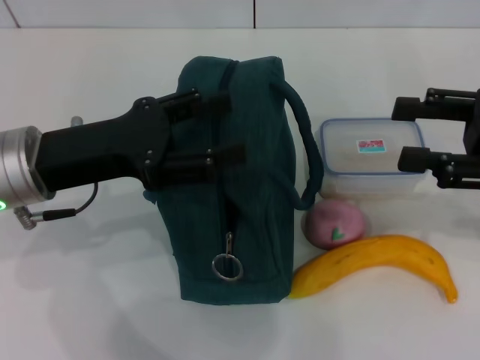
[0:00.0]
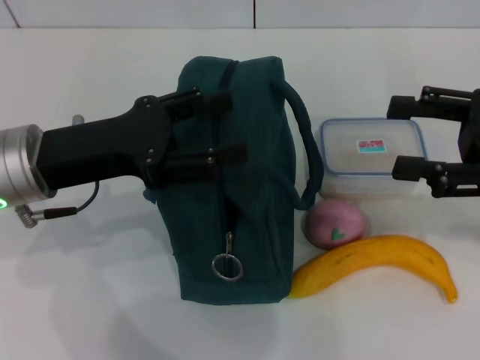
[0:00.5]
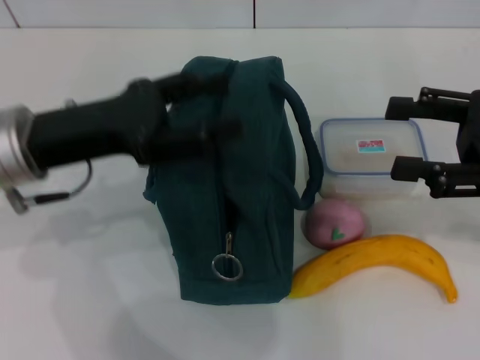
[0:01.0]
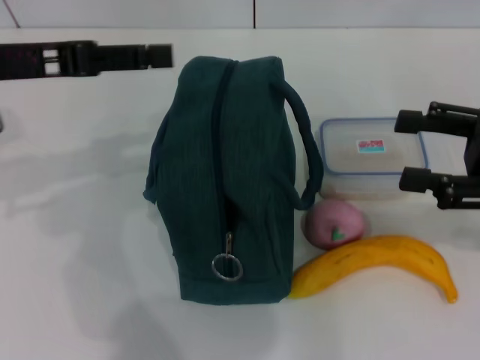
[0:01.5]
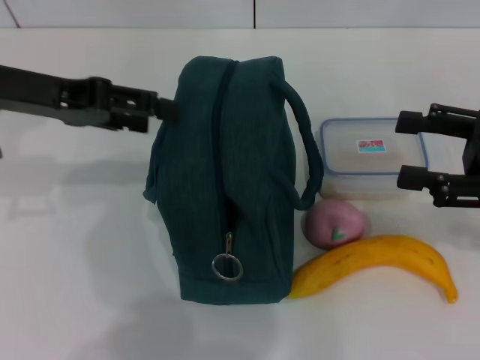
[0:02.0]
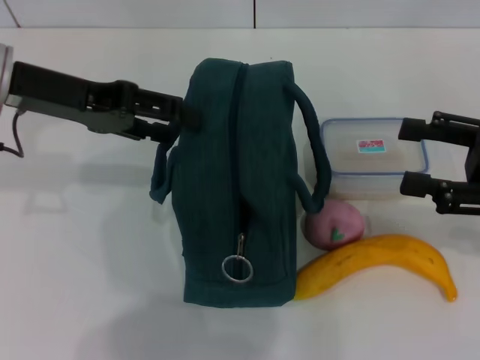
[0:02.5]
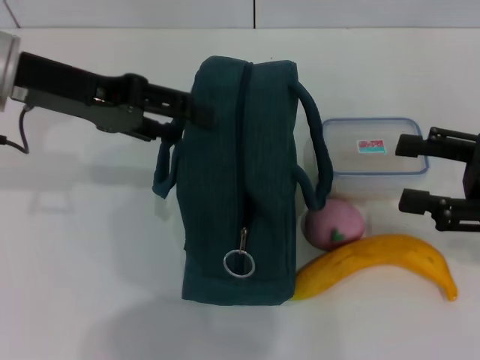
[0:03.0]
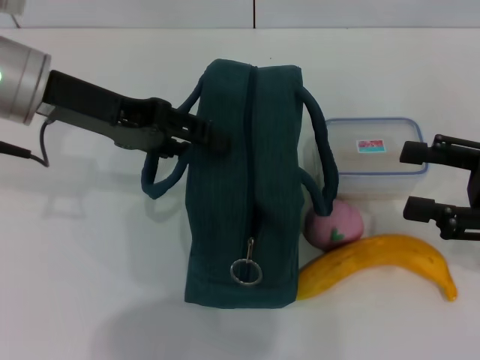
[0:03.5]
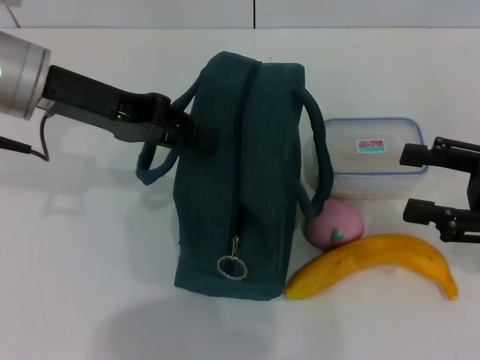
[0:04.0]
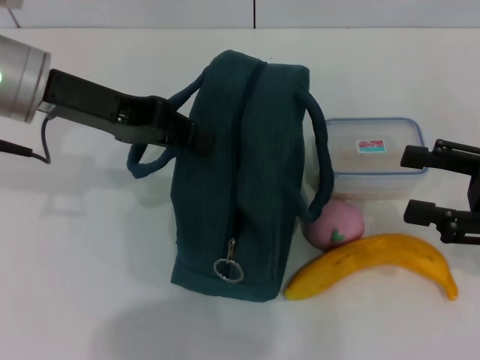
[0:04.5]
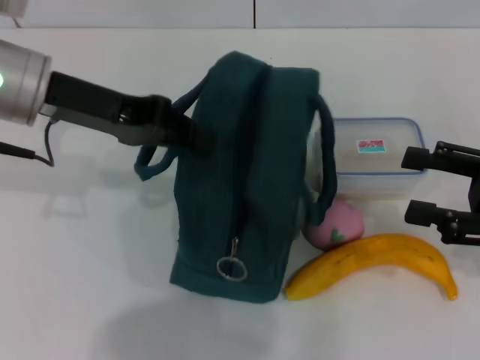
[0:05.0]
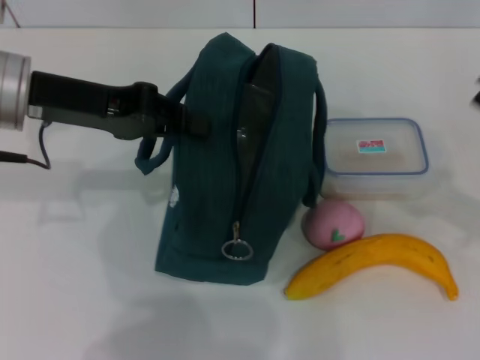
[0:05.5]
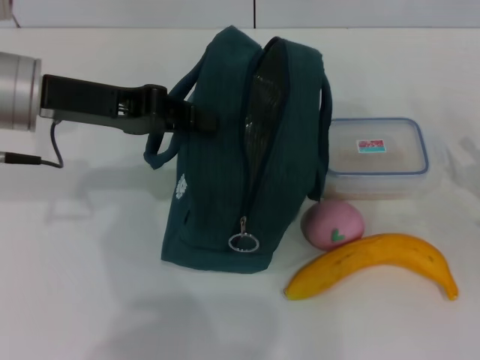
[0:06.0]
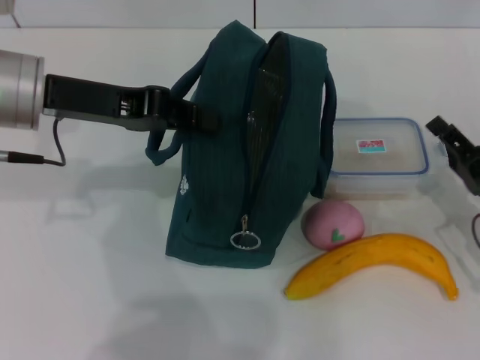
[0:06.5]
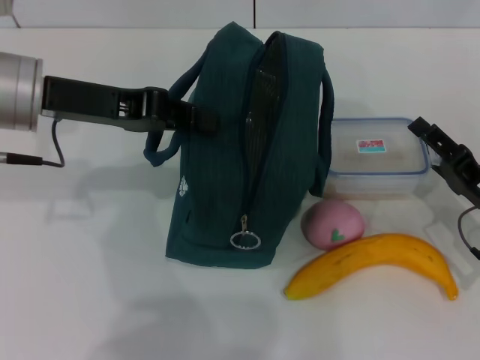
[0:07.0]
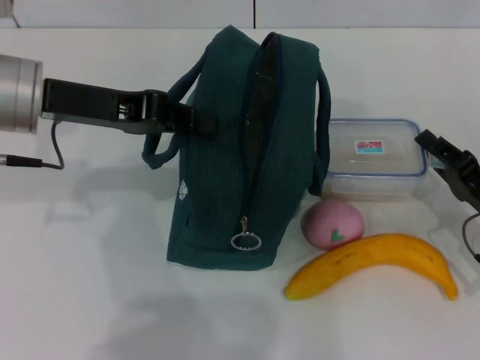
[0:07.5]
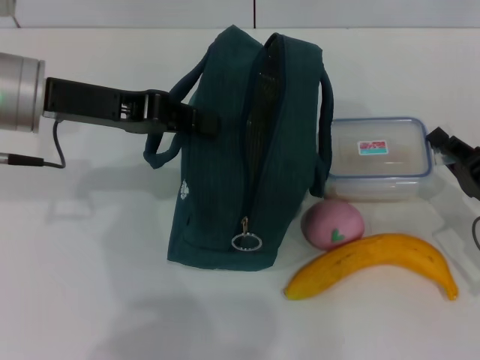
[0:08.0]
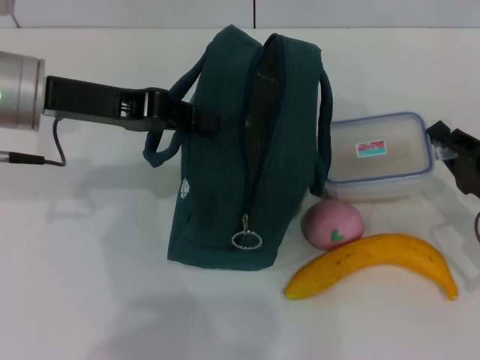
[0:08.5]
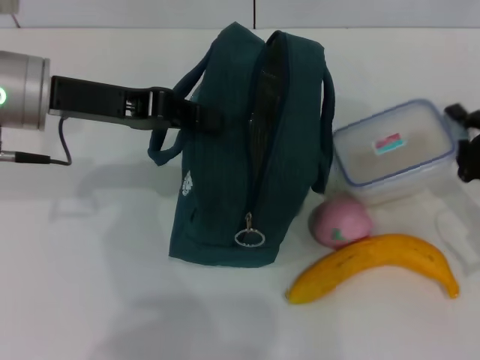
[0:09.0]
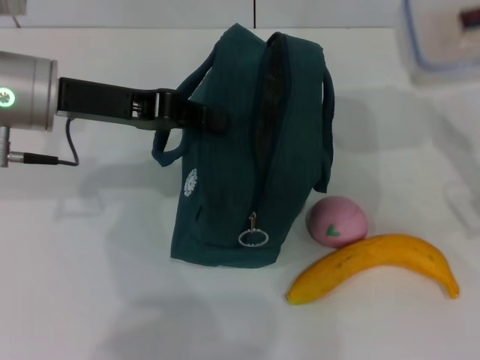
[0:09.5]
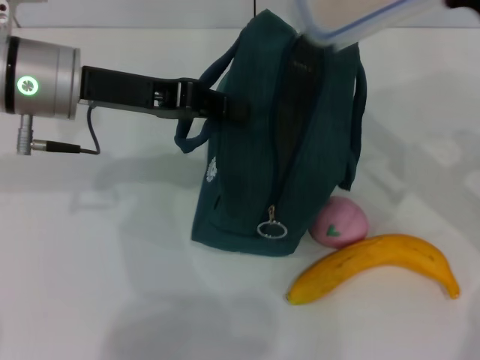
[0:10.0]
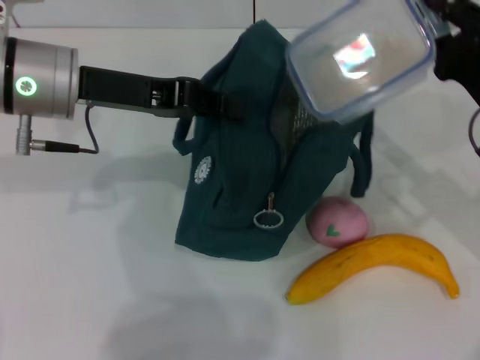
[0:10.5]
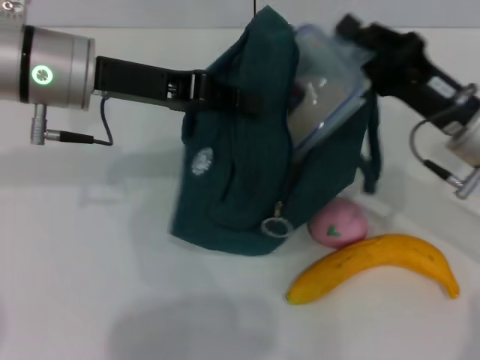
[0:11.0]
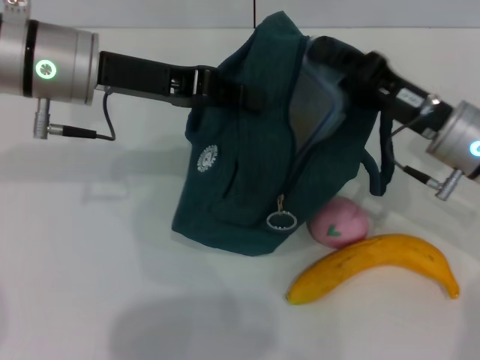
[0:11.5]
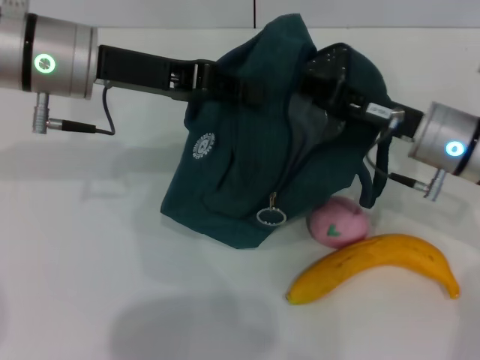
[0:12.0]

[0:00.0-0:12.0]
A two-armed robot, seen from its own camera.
Step, 0:00.0 to 0:04.0: Hold the lunch bag with your left hand.
Step, 0:04.5 to 0:08.0: Pick up the lunch box with your right hand.
0:00.0 to 0:02.0: The left gripper heads upward and forward, covering roughly 10 cm.
0:02.0 to 0:04.0: The left gripper closes.
0:04.0 to 0:06.0: The right gripper heads downward, covering roughly 10 cm. Meanwhile the left gripper closes up.
0:06.0 to 0:08.0: The right gripper closes.
0:08.0 to 0:10.0: The right gripper heads upward, forward and to the left, covering about 15 cm.
0:10.0 to 0:12.0: The right gripper moves approximately 5 cm.

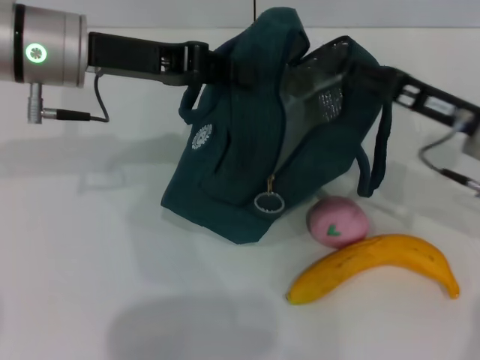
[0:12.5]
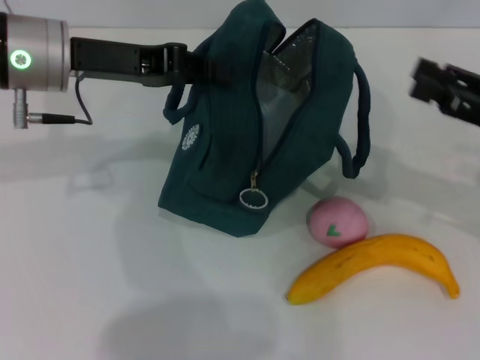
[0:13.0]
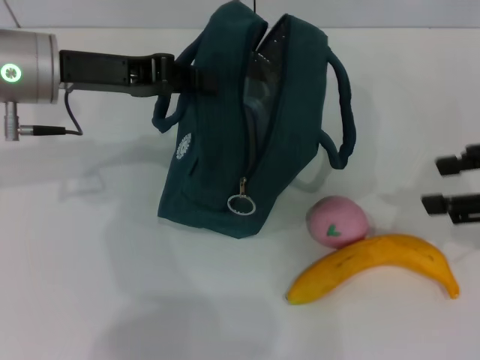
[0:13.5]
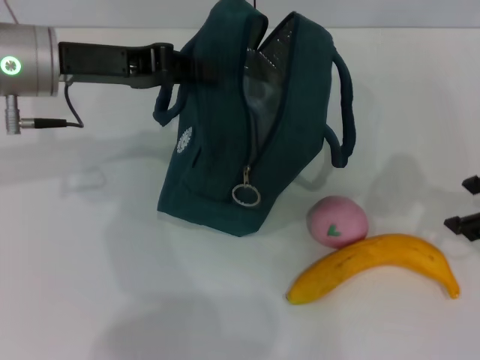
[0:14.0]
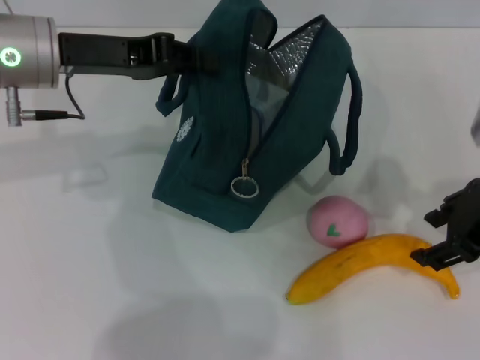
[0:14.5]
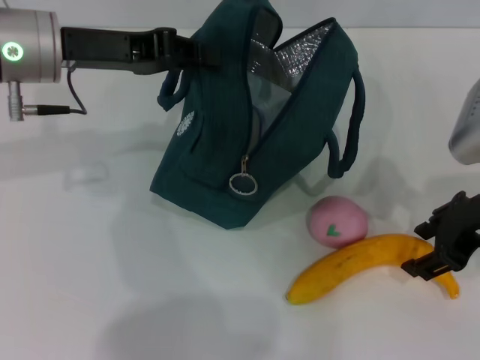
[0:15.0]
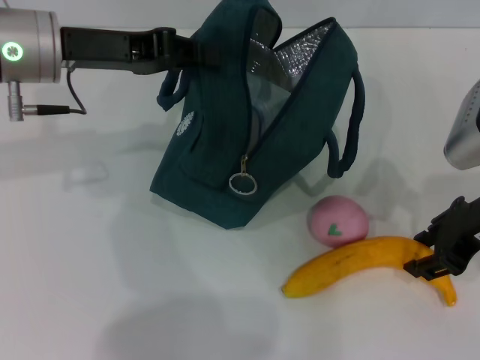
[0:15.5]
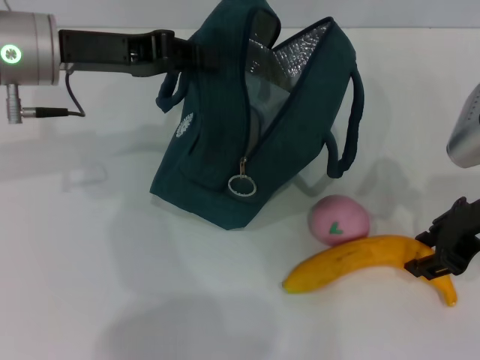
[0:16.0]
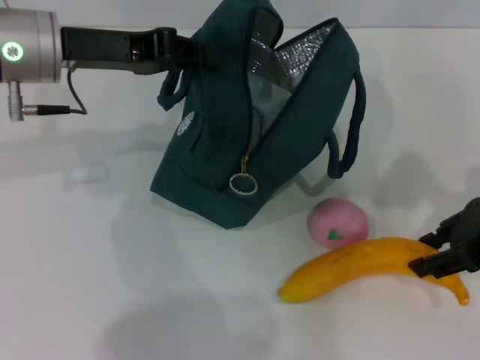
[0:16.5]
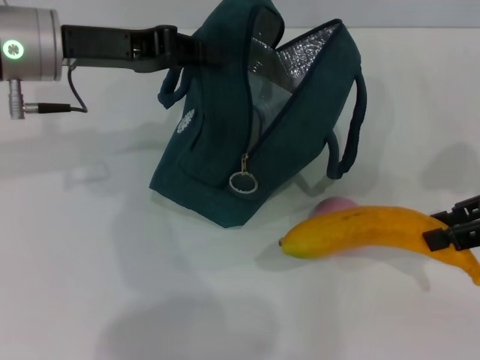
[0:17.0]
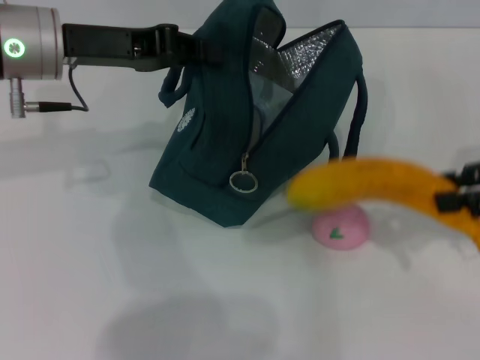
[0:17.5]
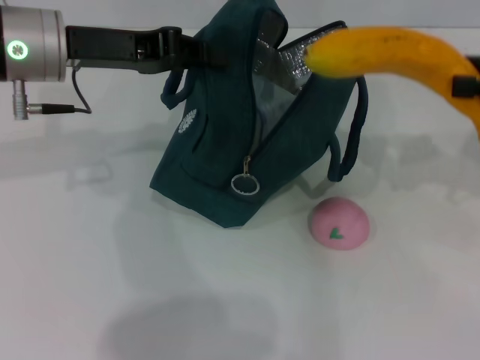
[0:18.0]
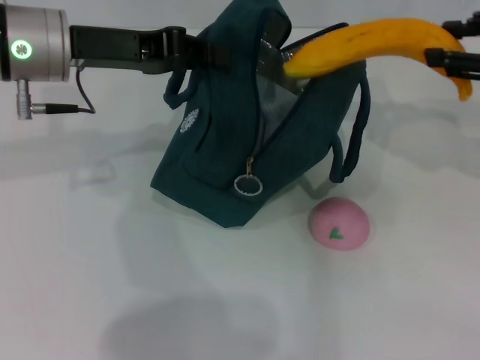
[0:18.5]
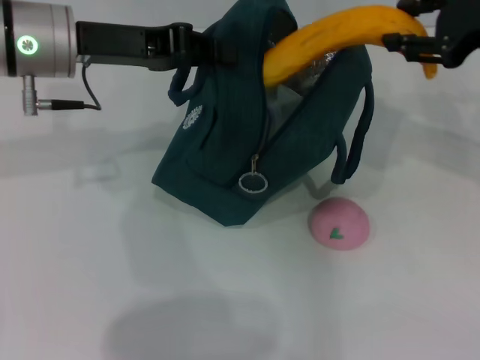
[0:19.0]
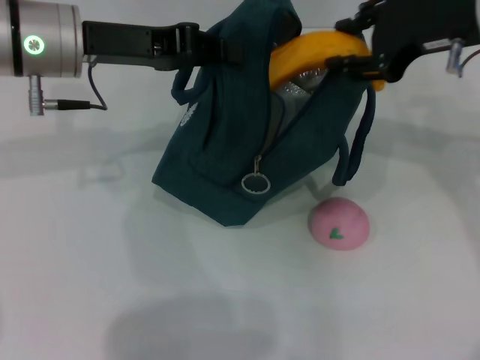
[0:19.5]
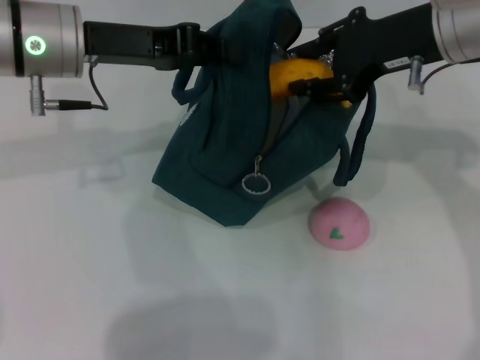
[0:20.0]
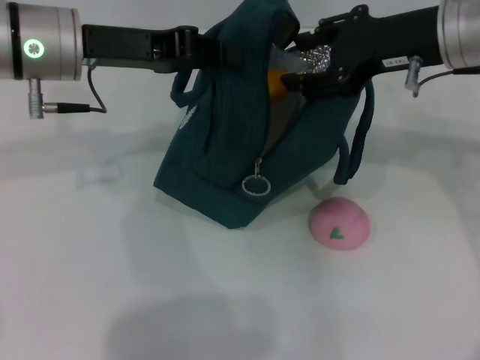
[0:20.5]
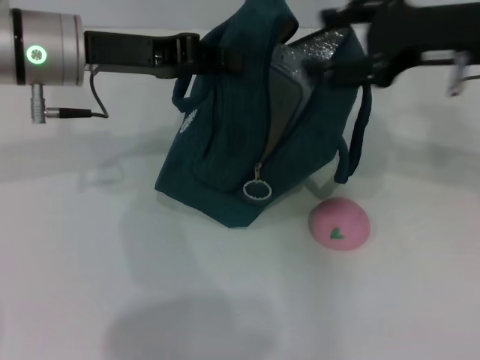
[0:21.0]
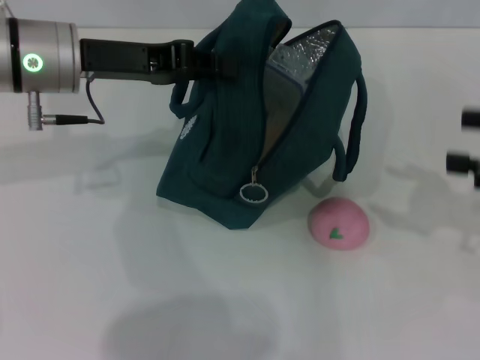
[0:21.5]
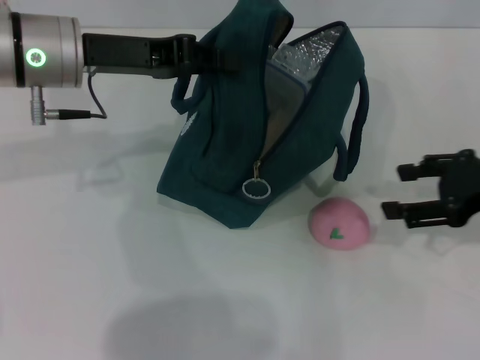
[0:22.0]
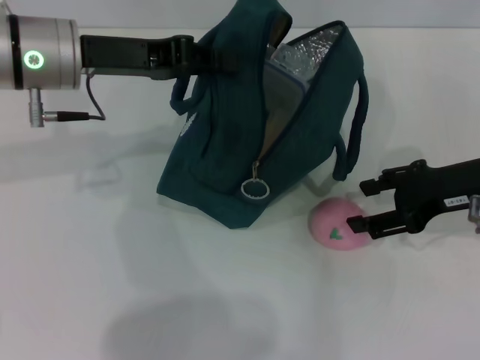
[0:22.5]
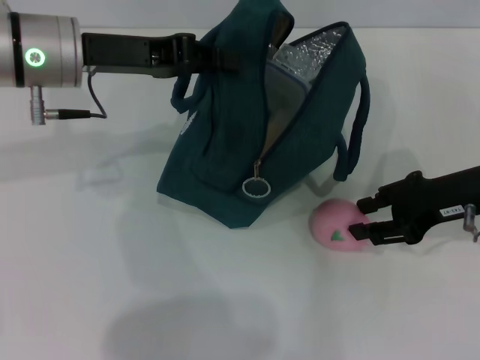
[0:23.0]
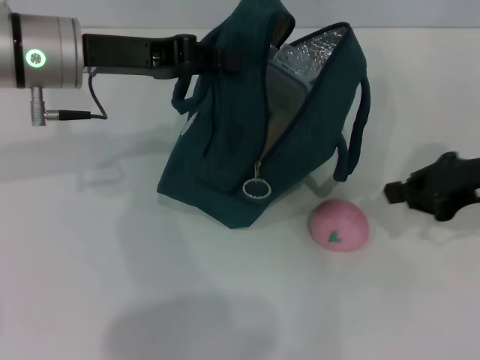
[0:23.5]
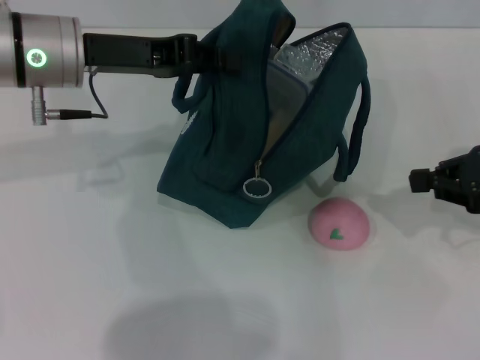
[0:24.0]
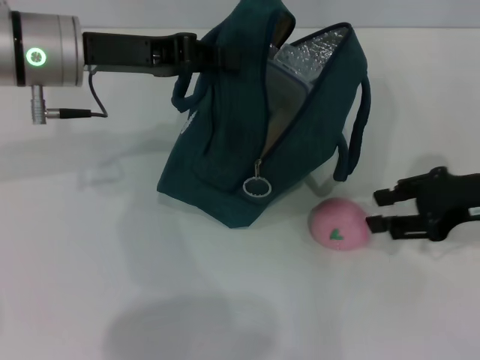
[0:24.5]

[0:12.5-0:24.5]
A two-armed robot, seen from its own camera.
Step, 0:12.5 to 0:15.5: Take the banana with your right hand.
Step, 0:16.0 to 0:20.5: Put the banana into the lunch bag with your right hand.
0:12.5 to 0:14.5: The right gripper heads upward, covering some 5 cm.
0:14.5 to 0:16.5: There are only small adjustments of the grippers.
0:16.5 to 0:18.5: The right gripper travels upward by some 5 cm.
0:18.5 to 0:20.5: The right gripper goes approximately 10 cm to the left.
0:20.5 to 0:22.5: The right gripper goes roughly 15 cm downward, to the right and backward.
0:22.5 to 0:24.5: The right gripper closes.

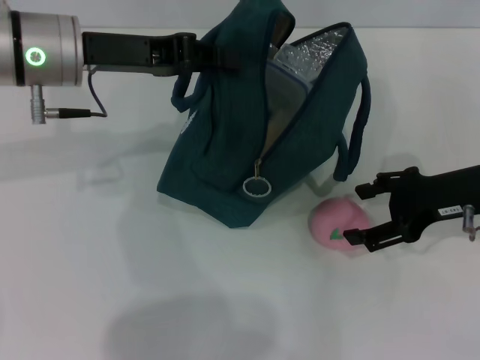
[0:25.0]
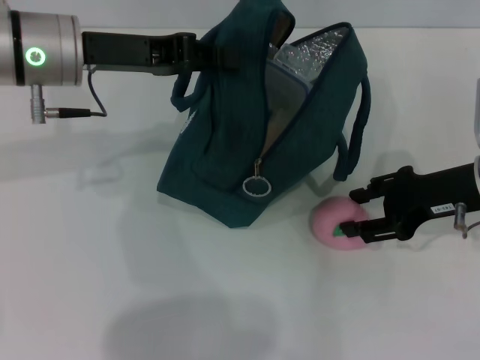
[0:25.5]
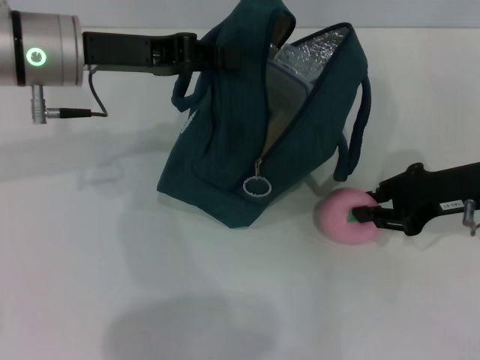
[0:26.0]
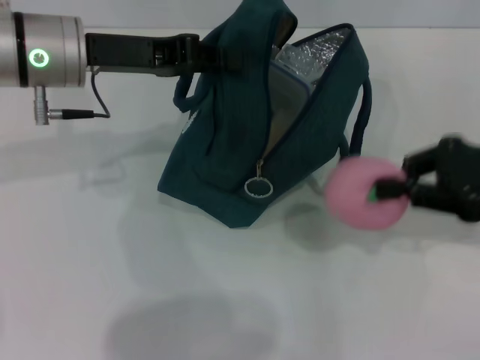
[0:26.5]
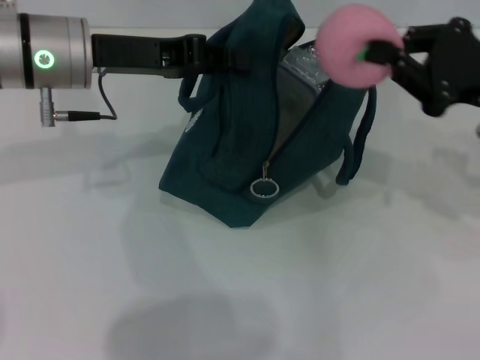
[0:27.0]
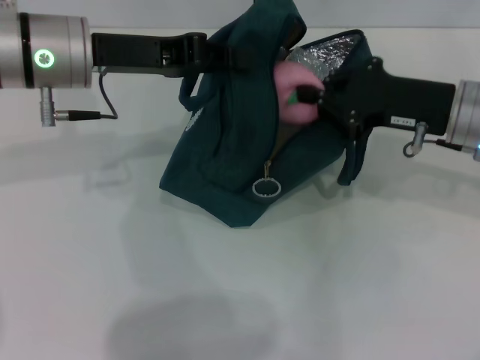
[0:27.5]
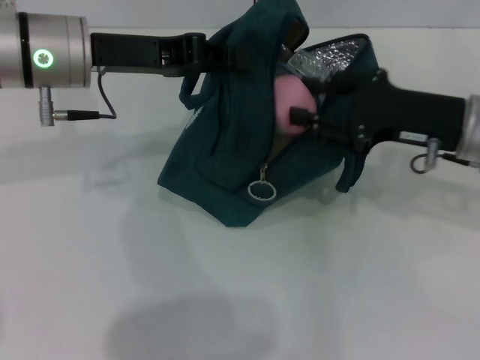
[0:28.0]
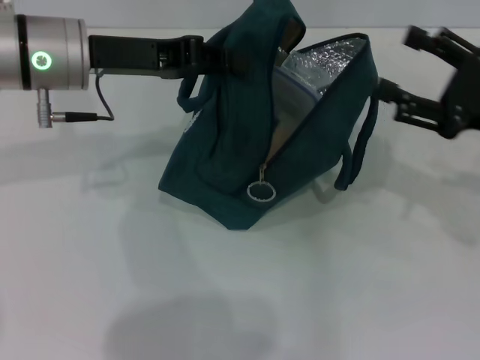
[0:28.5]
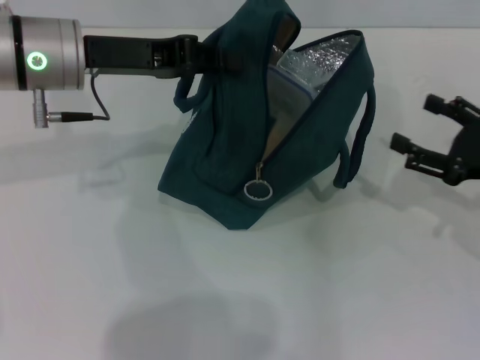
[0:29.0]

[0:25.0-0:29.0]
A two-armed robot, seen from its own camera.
0:25.0 to 0:27.0: The right gripper moves upward, roughly 5 cm, and closes up.
0:27.0 to 0:29.0: The right gripper shifts approximately 10 cm downward, and opens up.
